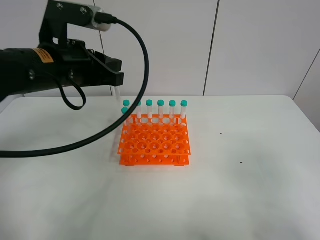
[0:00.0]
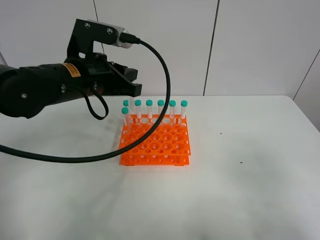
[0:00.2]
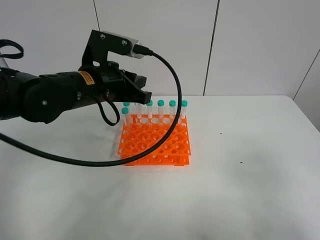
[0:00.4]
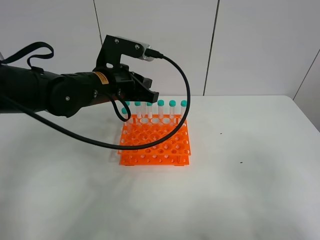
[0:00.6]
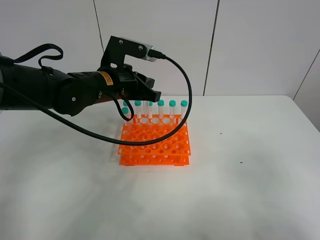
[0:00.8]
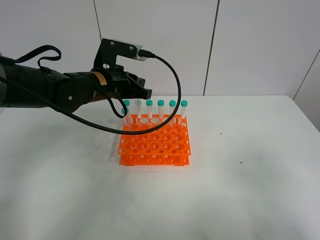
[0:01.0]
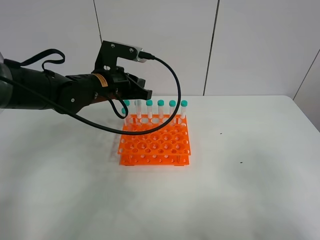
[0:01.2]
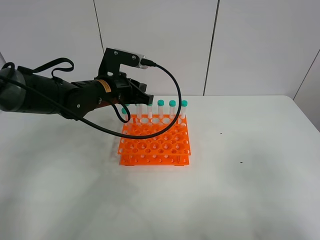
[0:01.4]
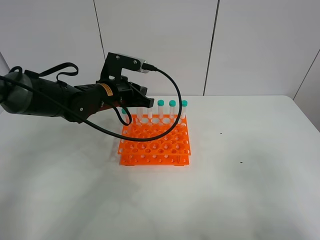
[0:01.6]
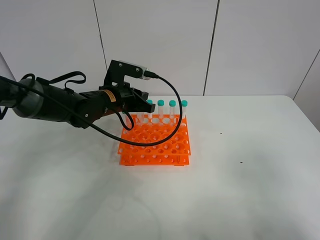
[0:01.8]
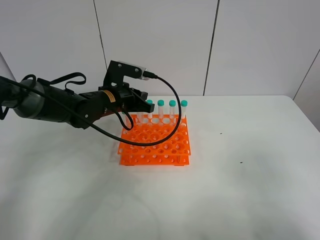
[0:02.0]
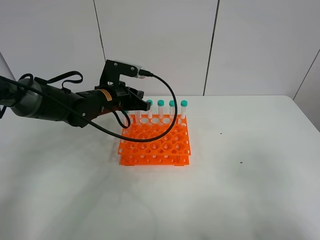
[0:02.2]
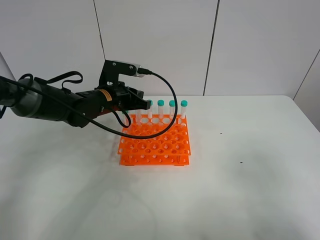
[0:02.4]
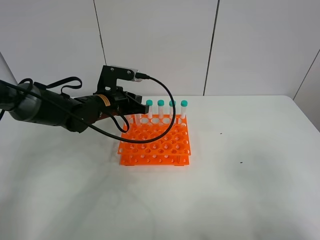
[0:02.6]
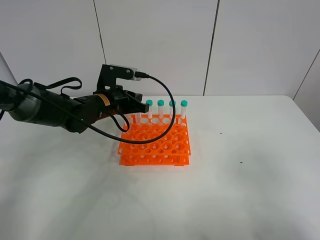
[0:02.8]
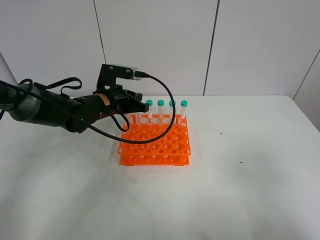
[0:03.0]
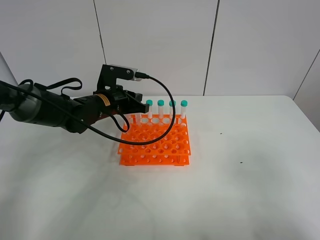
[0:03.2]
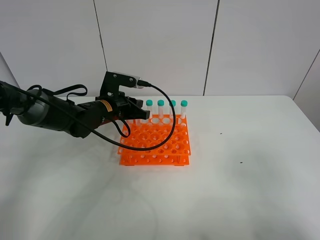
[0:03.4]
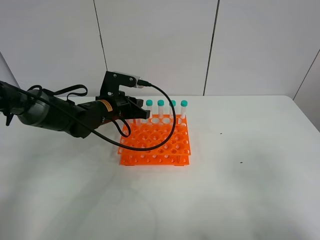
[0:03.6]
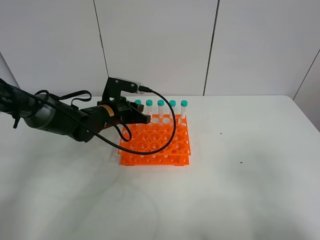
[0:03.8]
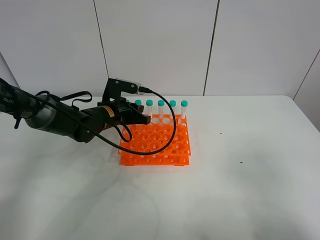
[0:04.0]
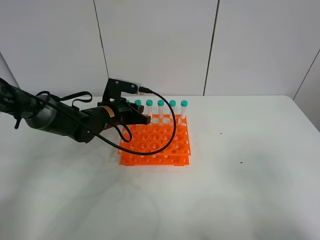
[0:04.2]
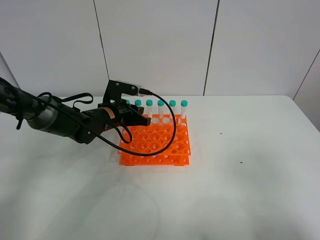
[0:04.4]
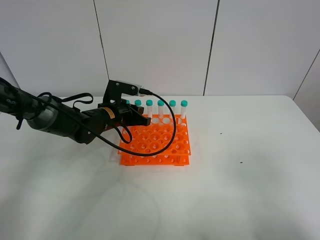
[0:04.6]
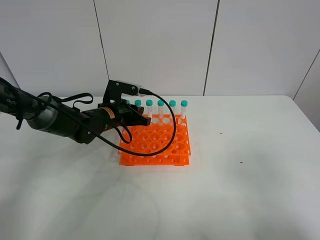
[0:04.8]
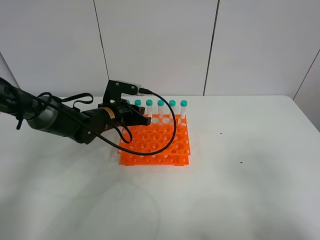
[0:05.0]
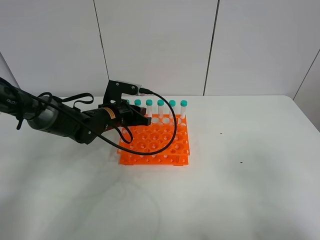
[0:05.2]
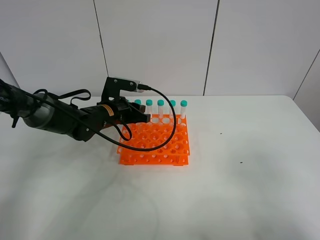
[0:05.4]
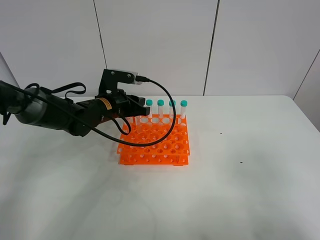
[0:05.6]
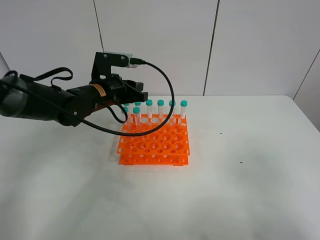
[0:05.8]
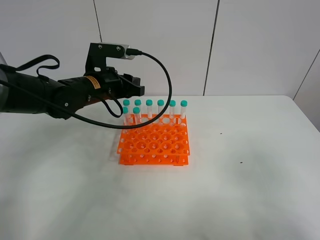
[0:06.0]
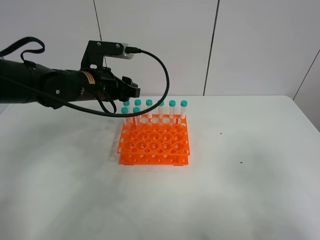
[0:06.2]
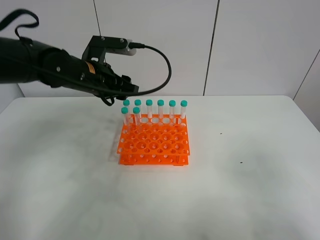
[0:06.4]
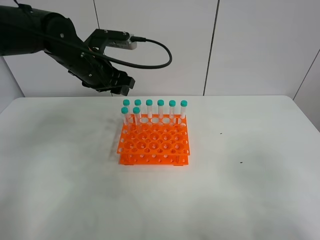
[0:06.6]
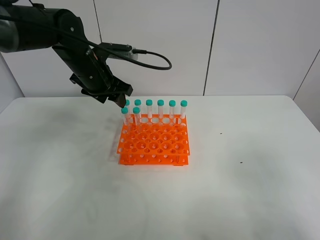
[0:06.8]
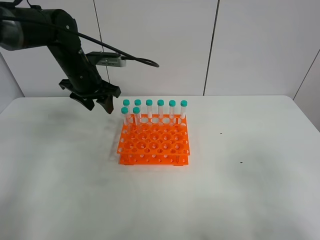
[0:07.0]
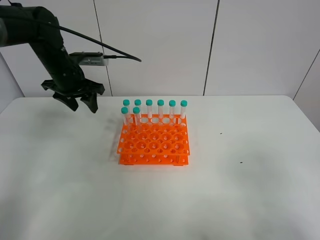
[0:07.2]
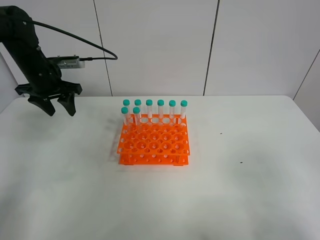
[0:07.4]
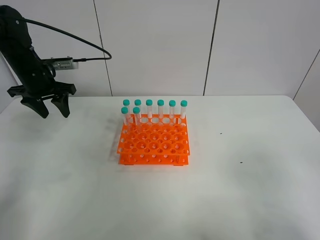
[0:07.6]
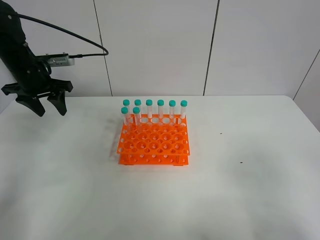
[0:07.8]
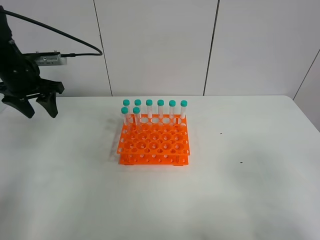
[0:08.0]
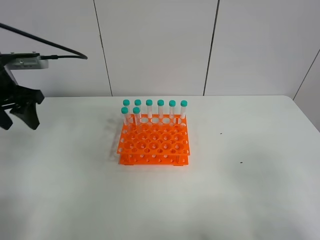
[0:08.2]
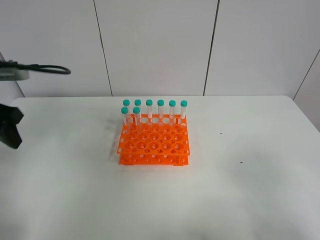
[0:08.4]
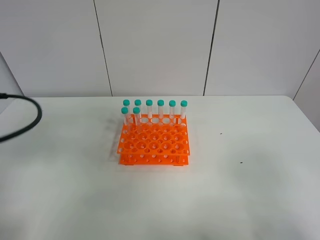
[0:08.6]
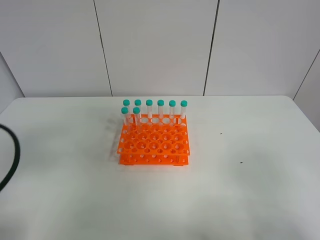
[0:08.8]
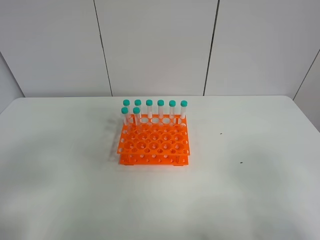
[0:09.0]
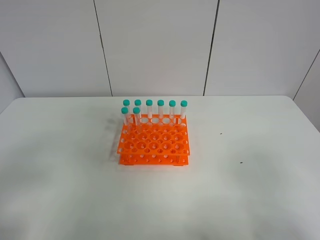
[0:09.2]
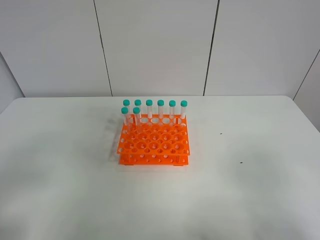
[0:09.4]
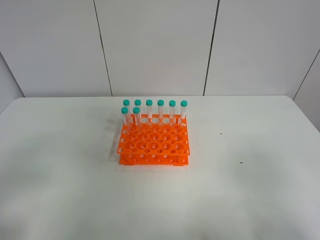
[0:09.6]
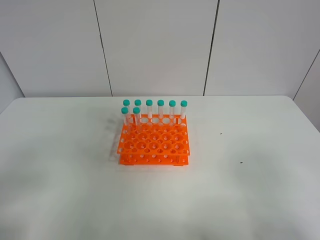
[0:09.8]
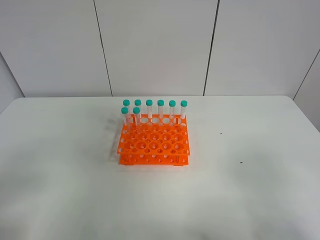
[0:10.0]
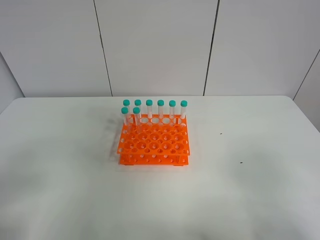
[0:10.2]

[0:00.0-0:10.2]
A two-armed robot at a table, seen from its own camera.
Task of the whole recording: Put the test tube on the table back onto the test tube rack.
Step, 0:00.0 to 0:05.2: Place the test tube on the test tube rack with the left gripper.
0:00.0 to 0:01.4: The left gripper goes some 15 cm downward and forward.
0:01.4 to 0:03.0: There are only small adjustments of the grippers.
0:03.0 to 0:04.4: The grippers stay close to where they were, moving slightly.
0:04.4 to 0:05.8: The left gripper shifts some 10 cm upward, and opens.
0:05.8 to 0:07.2: The left gripper travels to the left and forward by roughly 10 cm, and opens up.
0:07.2 to 0:08.8: The left gripper heads backward, covering approximately 30 cm.
0:08.8 to 0:10.2: The left gripper shifts about 10 cm backward.

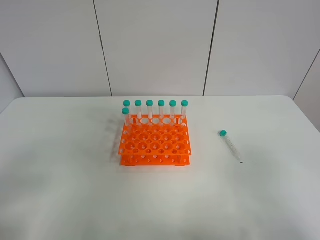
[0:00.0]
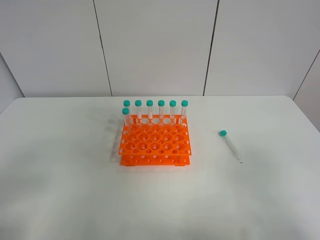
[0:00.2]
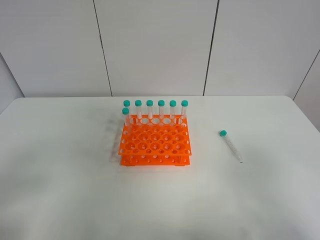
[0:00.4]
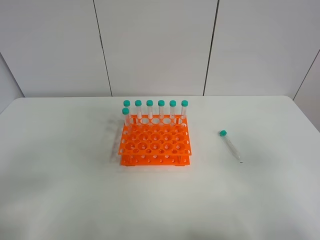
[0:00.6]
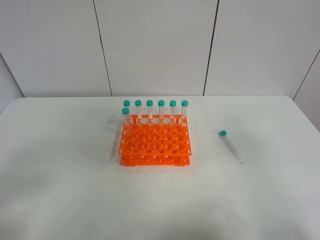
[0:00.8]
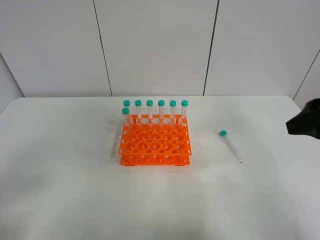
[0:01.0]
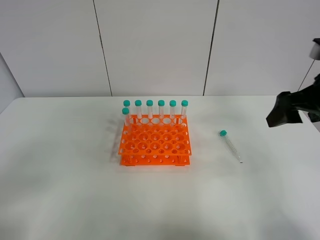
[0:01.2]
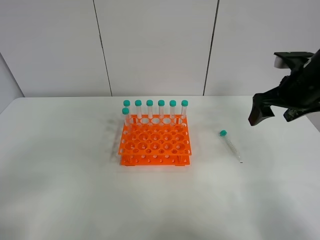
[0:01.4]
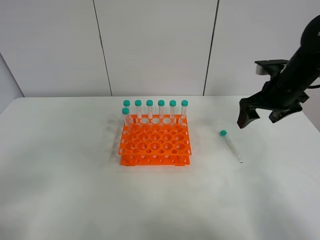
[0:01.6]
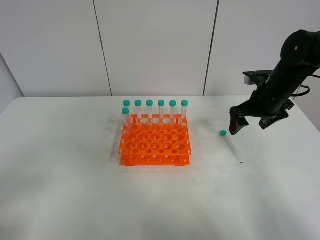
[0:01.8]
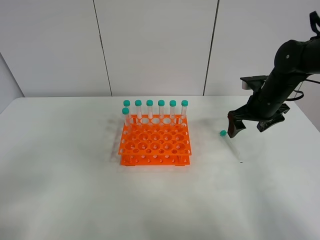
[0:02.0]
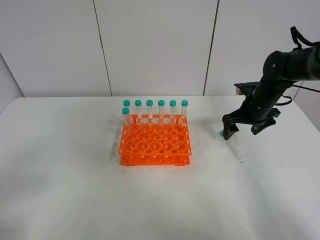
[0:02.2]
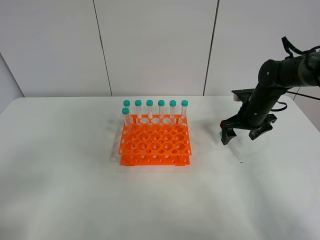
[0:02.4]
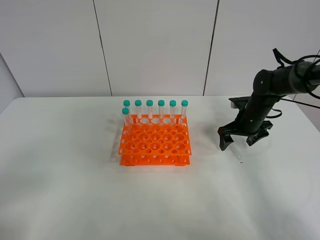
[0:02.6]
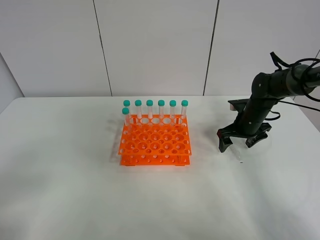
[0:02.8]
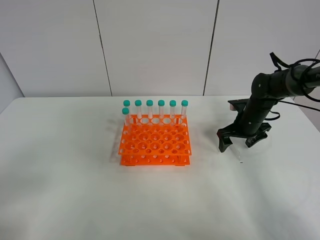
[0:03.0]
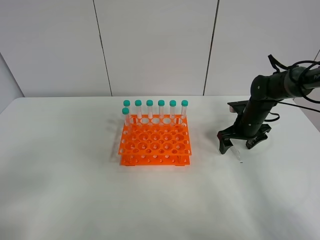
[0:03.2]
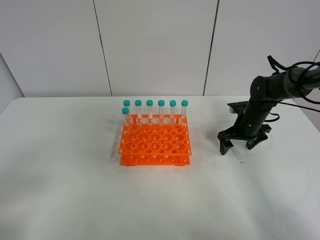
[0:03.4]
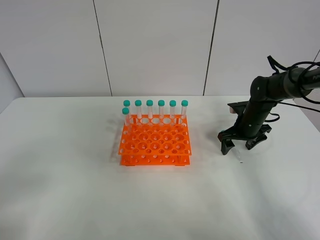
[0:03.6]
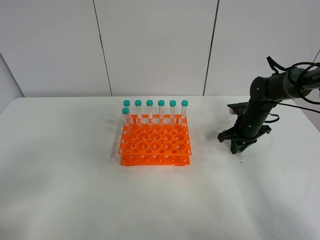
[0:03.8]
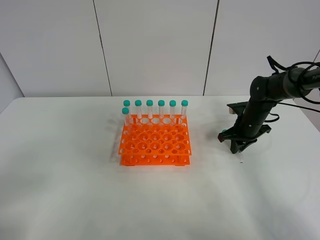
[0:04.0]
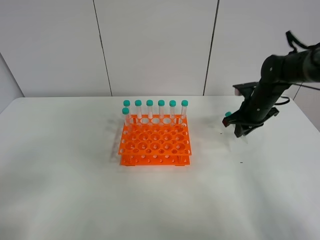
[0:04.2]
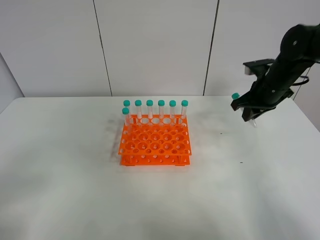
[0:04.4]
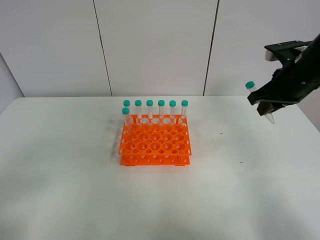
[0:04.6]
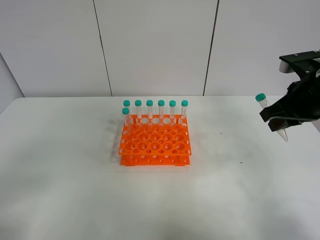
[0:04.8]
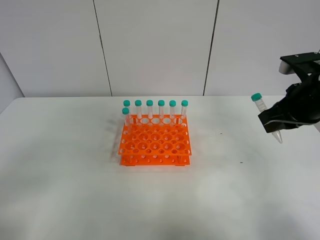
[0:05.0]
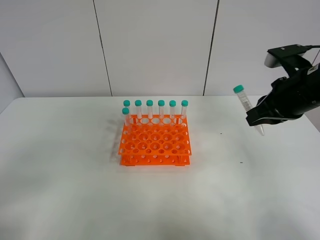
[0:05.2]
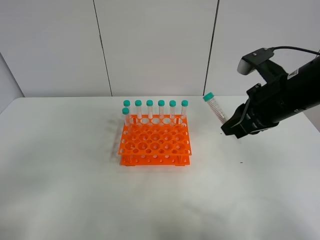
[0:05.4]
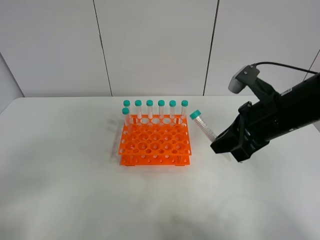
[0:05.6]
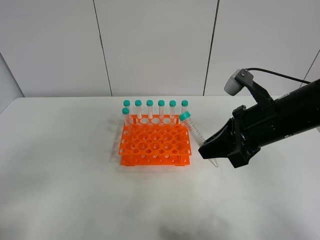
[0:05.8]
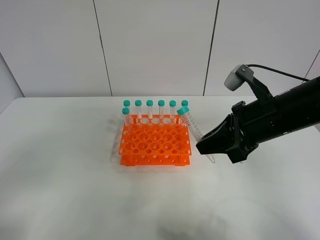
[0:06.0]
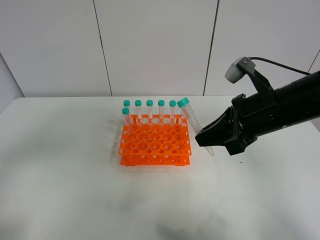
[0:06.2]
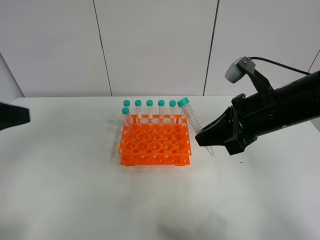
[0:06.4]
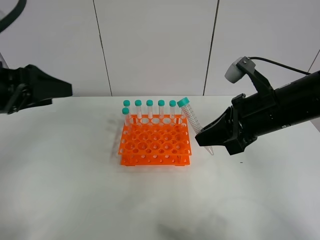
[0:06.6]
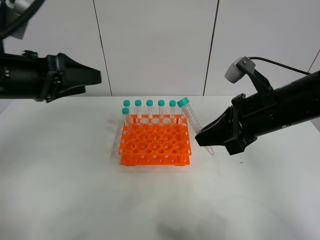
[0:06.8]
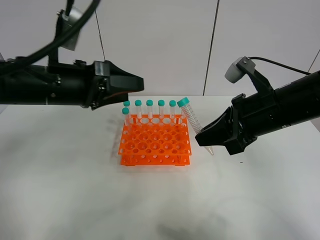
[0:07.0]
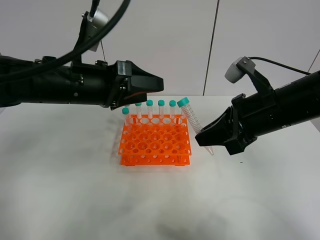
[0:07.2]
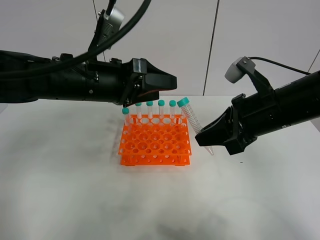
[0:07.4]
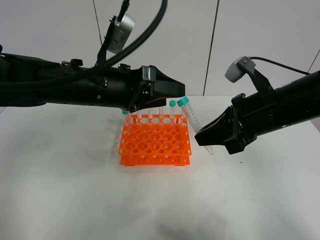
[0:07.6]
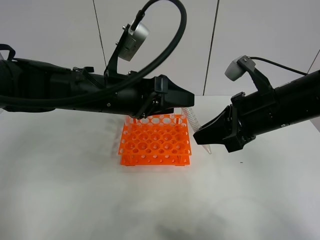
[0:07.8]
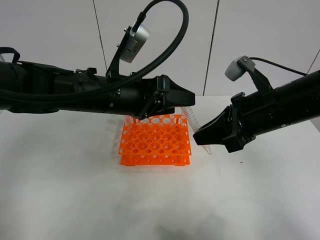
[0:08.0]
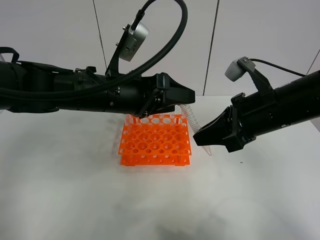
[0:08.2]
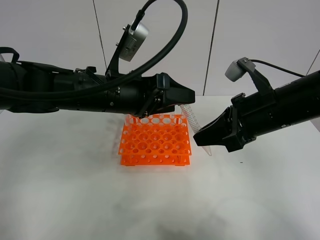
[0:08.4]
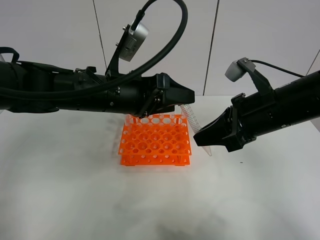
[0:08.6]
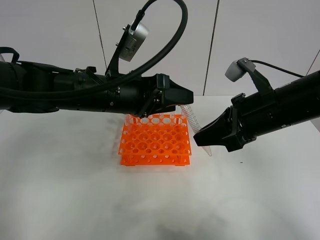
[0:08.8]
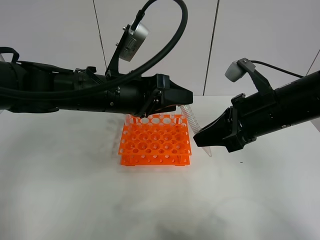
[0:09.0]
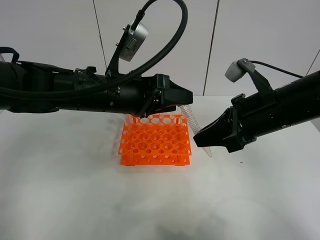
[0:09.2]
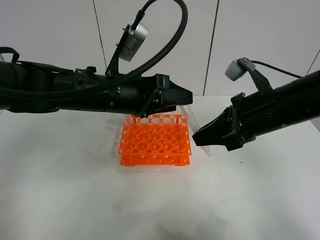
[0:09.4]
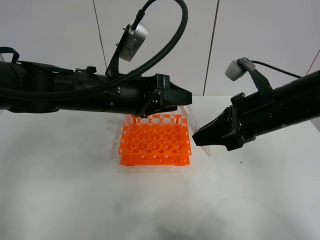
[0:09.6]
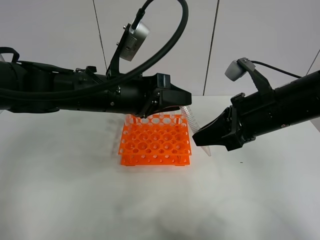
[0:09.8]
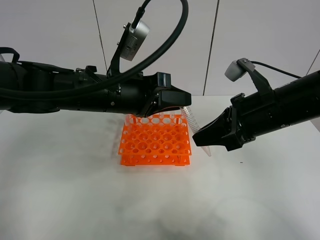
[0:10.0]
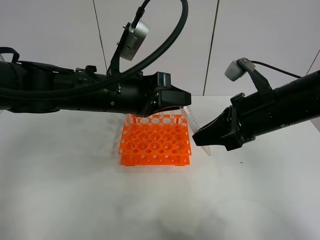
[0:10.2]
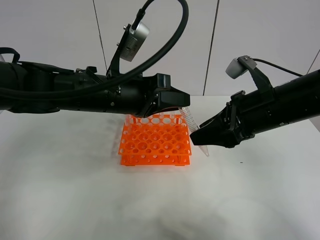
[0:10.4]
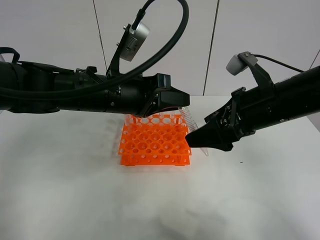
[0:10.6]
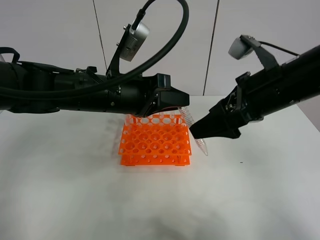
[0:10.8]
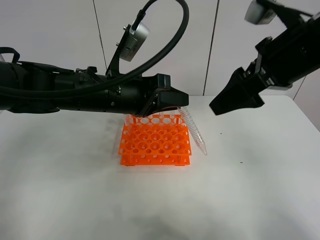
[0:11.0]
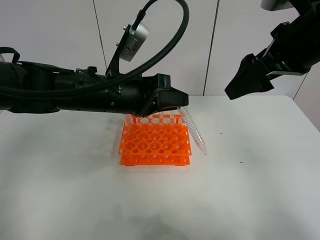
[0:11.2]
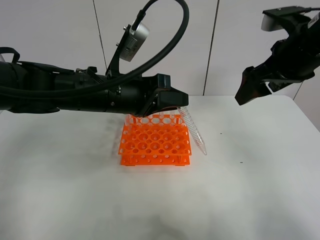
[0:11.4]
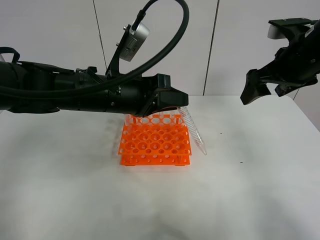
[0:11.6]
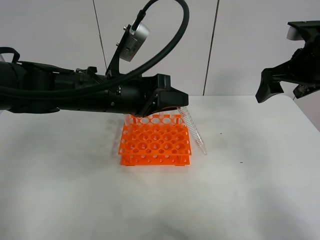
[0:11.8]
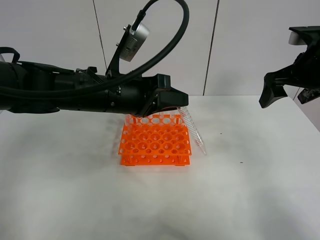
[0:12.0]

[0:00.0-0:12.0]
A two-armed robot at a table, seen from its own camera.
Task of the whole recording: Put the test tube on the table back onto the test tube rack.
Step, 0:00.0 to 0:03.8: Pick up the test tube with the right gripper.
Step, 0:04.0 to 0:10.4: Move the test tube from the right gripper to the left gripper.
0:00.0 to 0:01.6: The right gripper travels forward by approximately 35 cm.
0:01.6 to 0:03.0: The right gripper is displaced downward and forward by some 15 cm.
0:03.0 to 0:04.4: The right gripper is displaced upward by about 10 cm, and closes its fingers.
0:04.4 to 0:06.0: The right gripper shifts approximately 15 cm backward and to the left.
0:06.0 to 0:07.6: The left gripper travels forward and to the right by some 35 cm.
0:07.6 to 0:09.0: The grippers make only small movements.
0:09.0 to 0:10.4: The right gripper opens, while the left gripper closes up.
0:10.4 to 0:12.0: The right gripper is displaced to the right and forward by roughly 15 cm, and opens.
